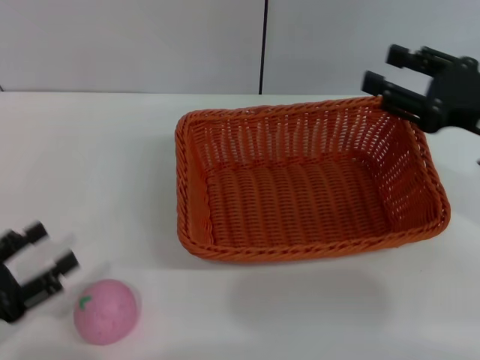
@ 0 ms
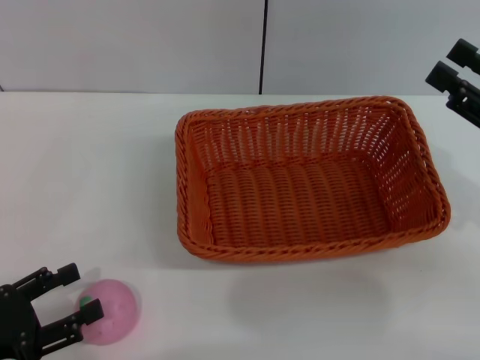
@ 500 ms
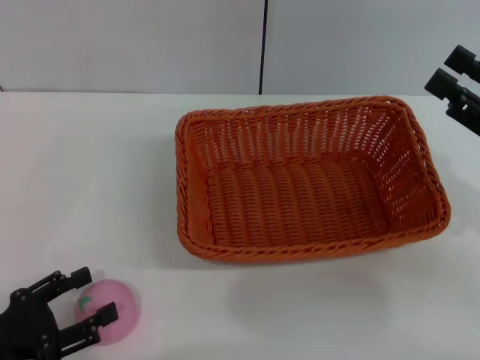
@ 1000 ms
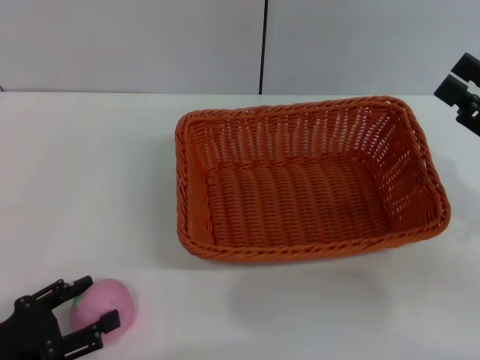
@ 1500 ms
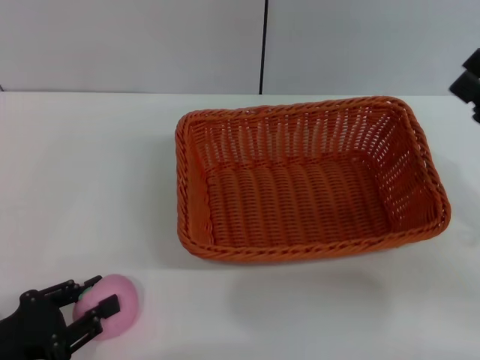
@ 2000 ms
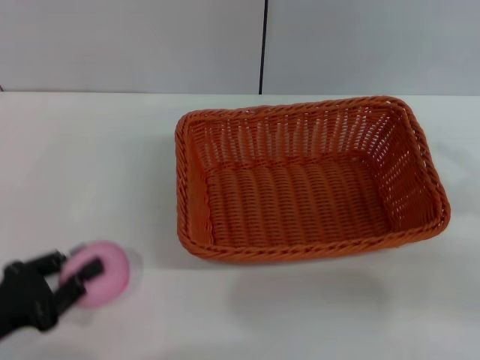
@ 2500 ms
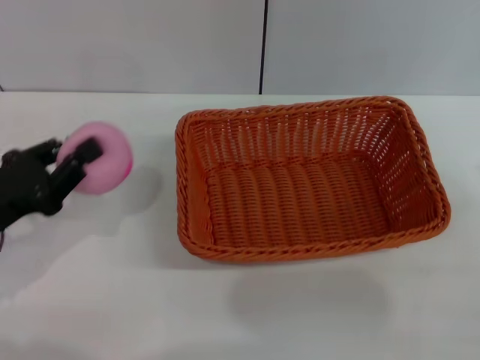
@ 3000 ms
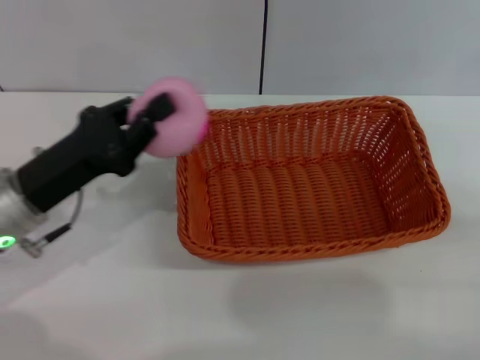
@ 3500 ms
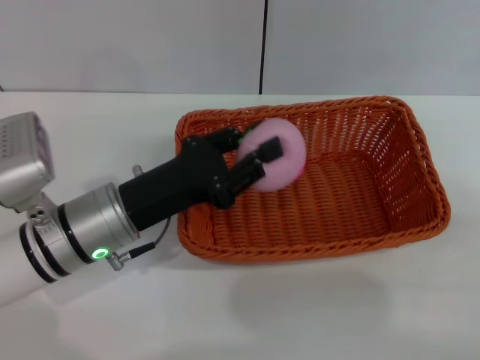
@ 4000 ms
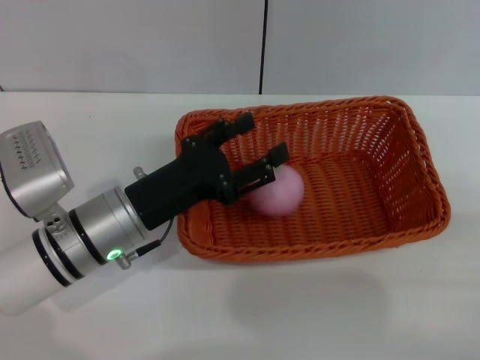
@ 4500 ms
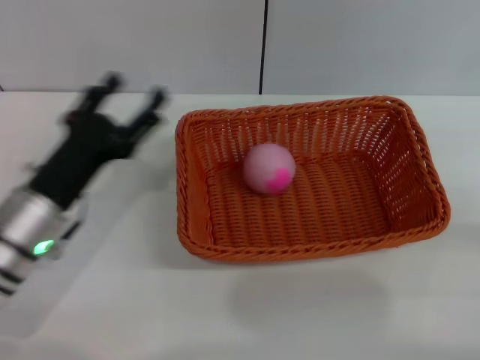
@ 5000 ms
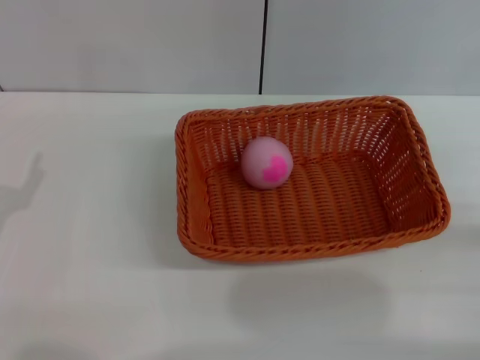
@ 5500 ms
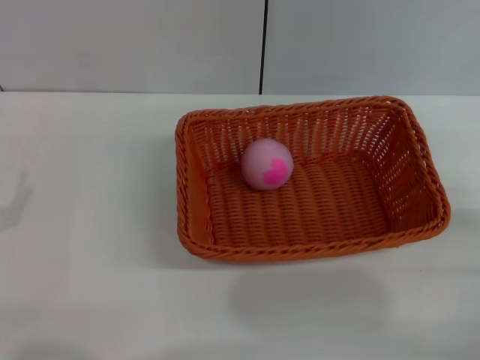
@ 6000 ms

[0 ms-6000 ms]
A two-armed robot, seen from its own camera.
Step, 0 ms to 2500 ms: Pick up the peach with the left gripper.
Step, 3000 ms to 4500 ms: Place the peach into the basket with the left gripper.
0 ms to 2000 ms: The right gripper goes roughly 5 cm backward.
2000 ms to 4000 ms: The left gripper goes roughly 20 cm to the right and forward, and closes; the right gripper is displaced backward and to the right by about 10 cm.
4000 ms to 6000 ms: The left gripper heads to the left and backward, covering some 20 cm, and opens up.

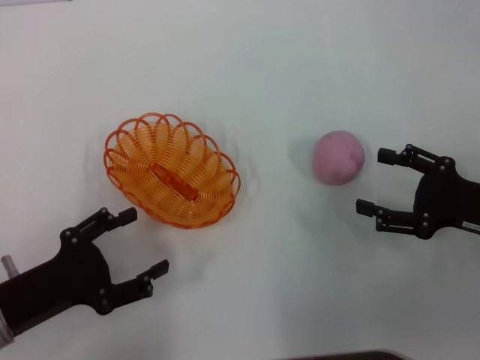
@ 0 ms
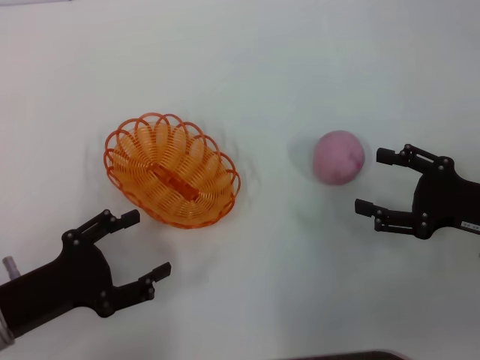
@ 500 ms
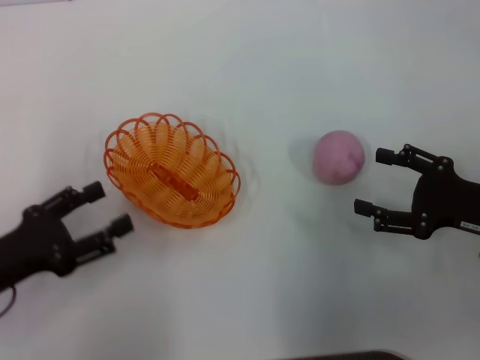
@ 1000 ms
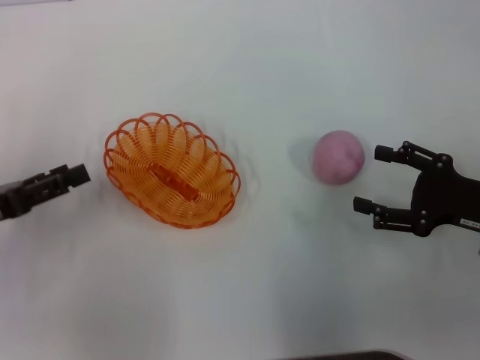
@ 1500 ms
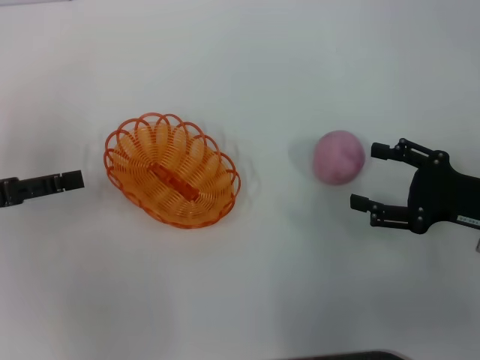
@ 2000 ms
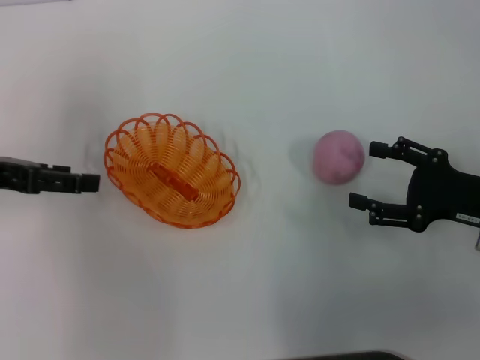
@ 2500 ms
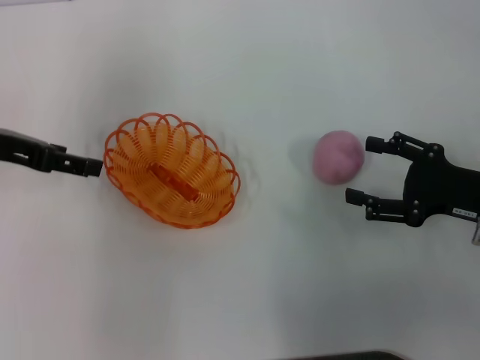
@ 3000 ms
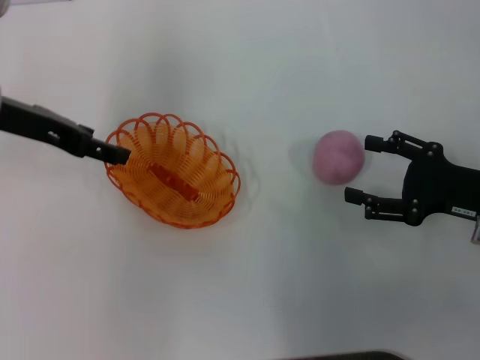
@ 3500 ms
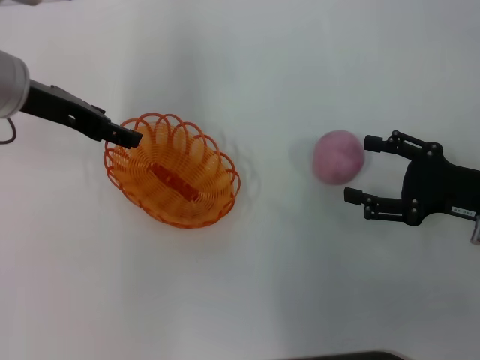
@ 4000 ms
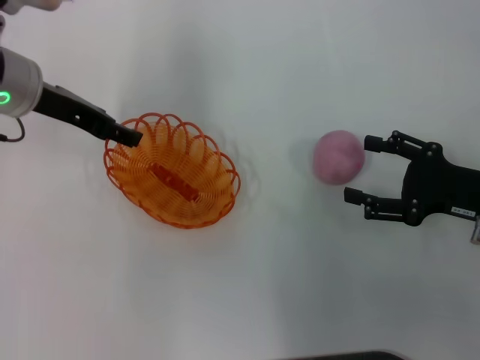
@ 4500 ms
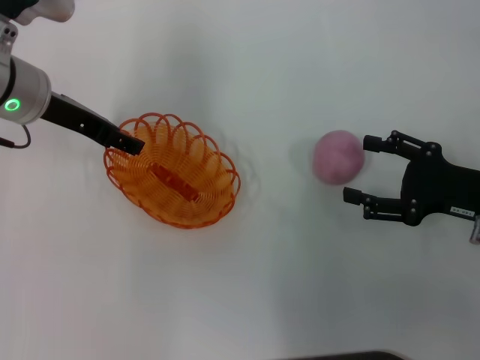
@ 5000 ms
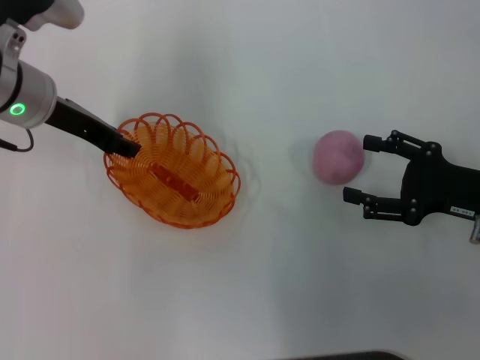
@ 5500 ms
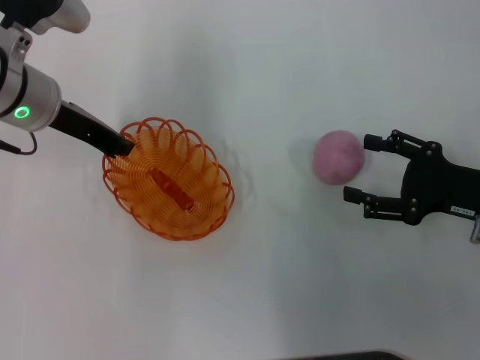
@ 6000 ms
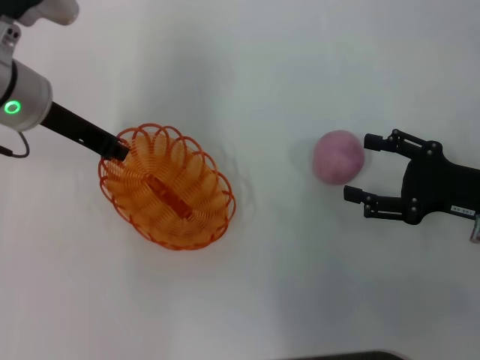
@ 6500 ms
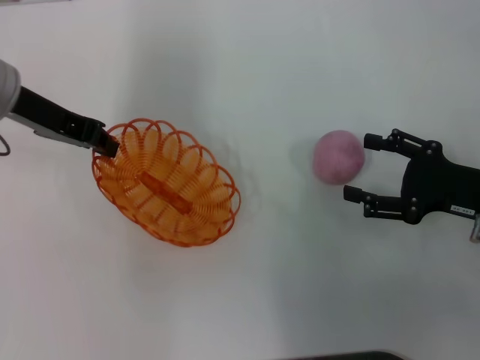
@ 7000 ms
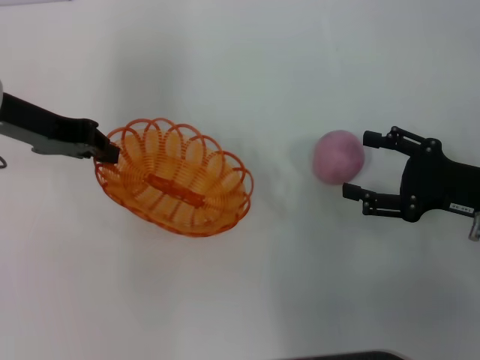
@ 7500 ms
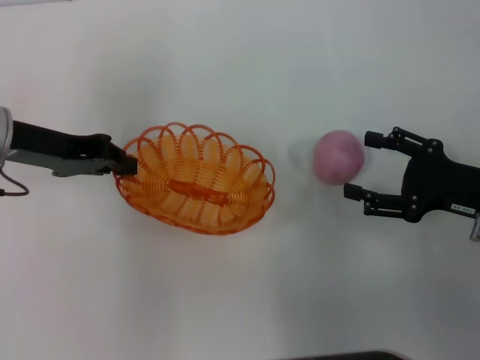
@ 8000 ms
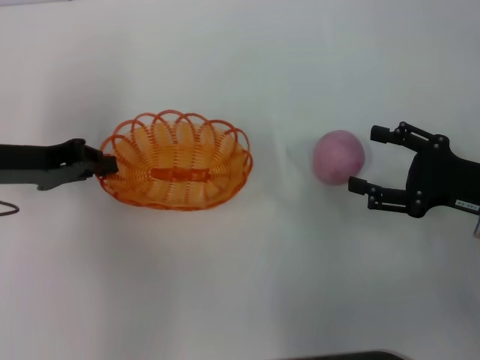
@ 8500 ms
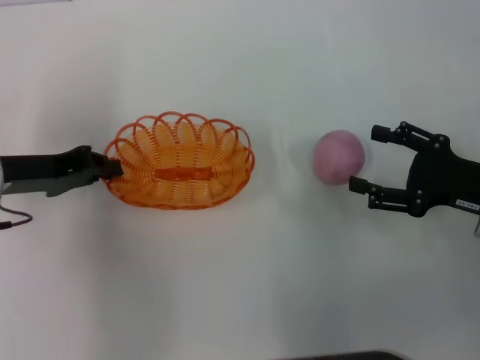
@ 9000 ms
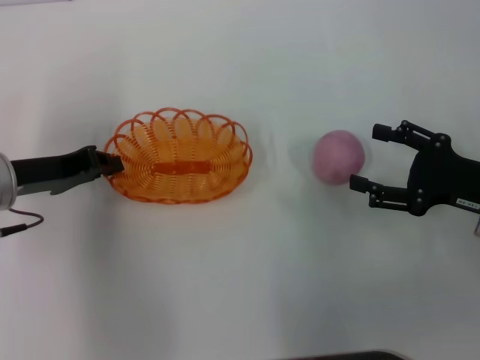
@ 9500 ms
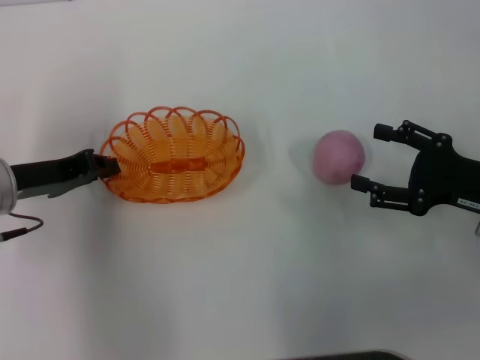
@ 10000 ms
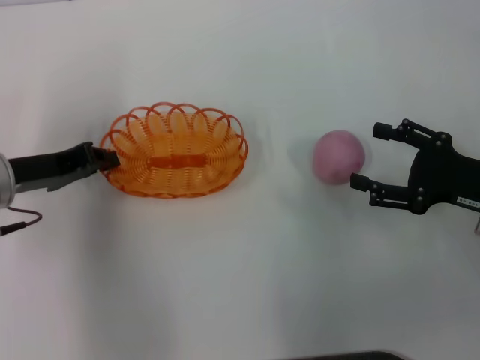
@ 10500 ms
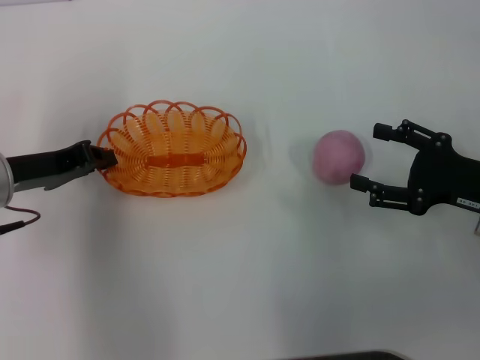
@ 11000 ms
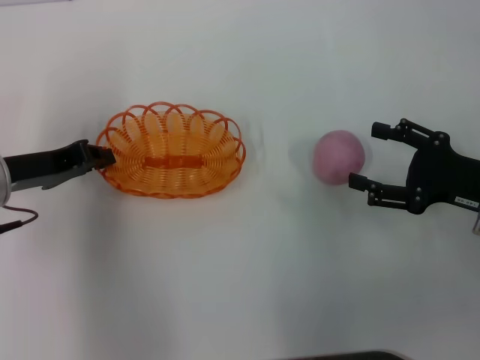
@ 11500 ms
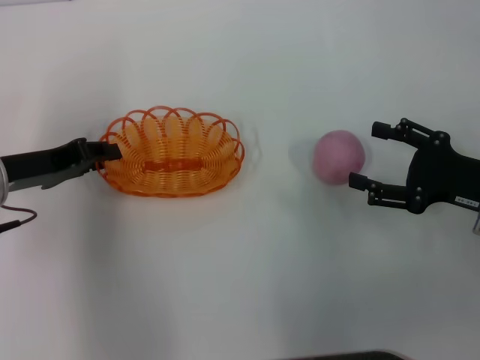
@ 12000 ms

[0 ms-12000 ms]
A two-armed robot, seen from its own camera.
Step, 0 ms to 6500 ms: Pick up the basket with the left gripper.
0 ms to 2000 ms: The left gripper heads forward, upward and to the left, covering about 15 cm.
2000 ms to 4000 ms: The left gripper heads to the right, forward and upward, covering approximately 15 cm.
4000 ms to 6000 ms: The left gripper closes.
6000 ms to 8000 ms: The left gripper moves roughly 5 cm.
8000 ms to 10000 ms: The left gripper goes some 5 cm downward.
10000 ms to 12000 ms: The two grippers keep their place.

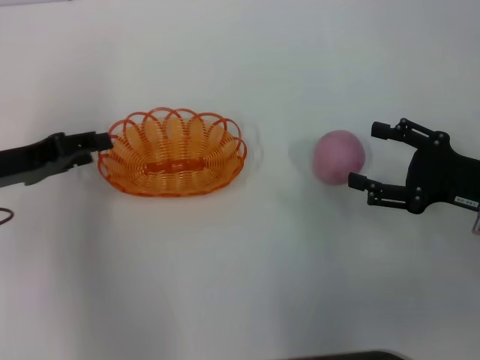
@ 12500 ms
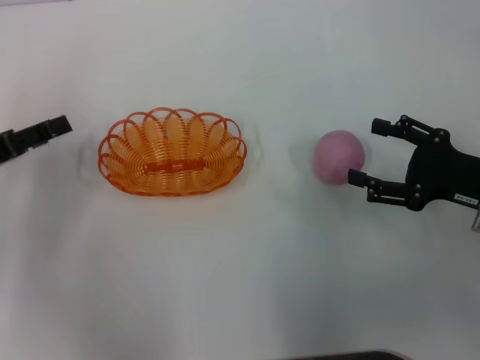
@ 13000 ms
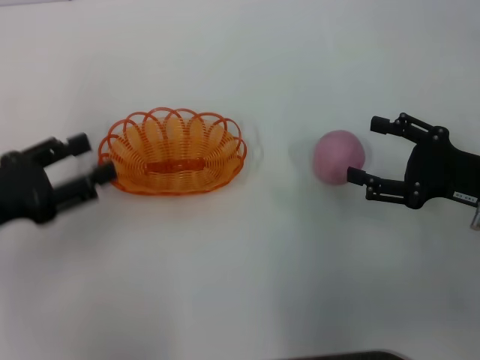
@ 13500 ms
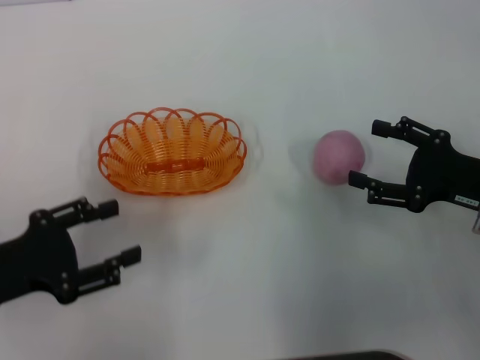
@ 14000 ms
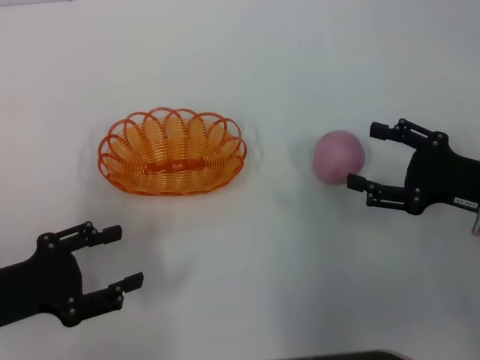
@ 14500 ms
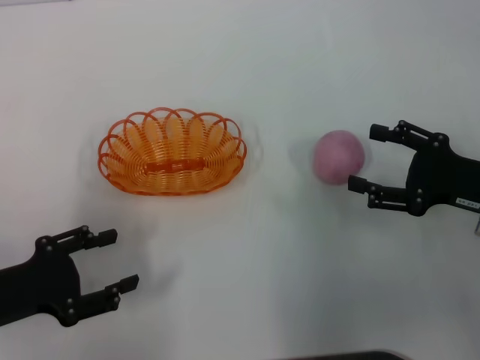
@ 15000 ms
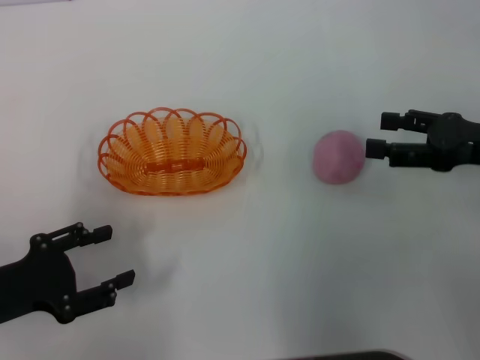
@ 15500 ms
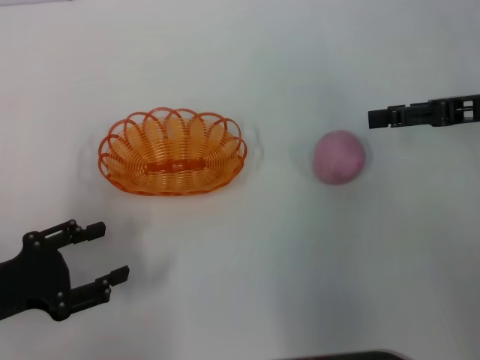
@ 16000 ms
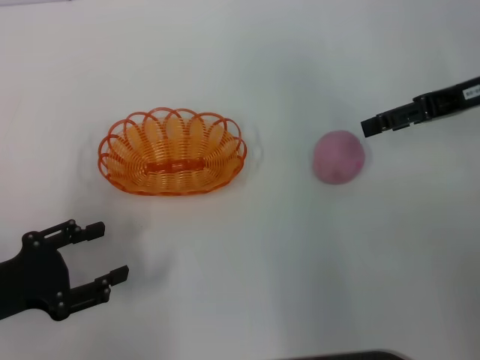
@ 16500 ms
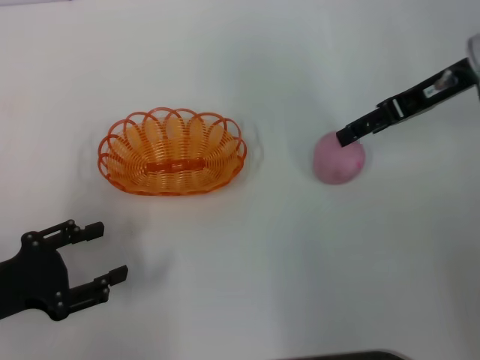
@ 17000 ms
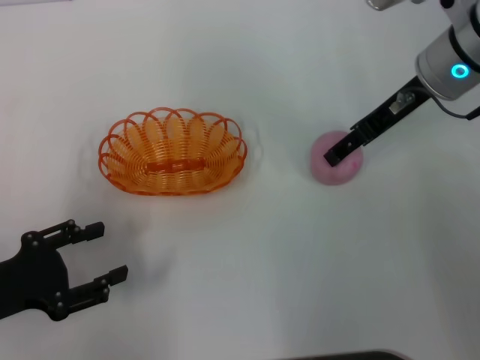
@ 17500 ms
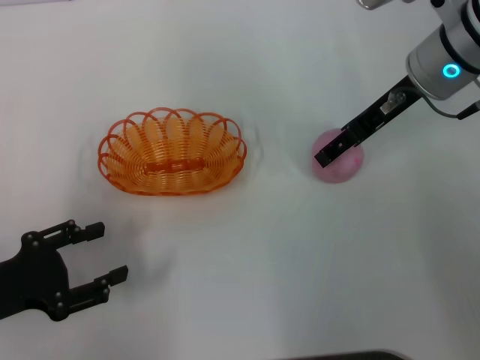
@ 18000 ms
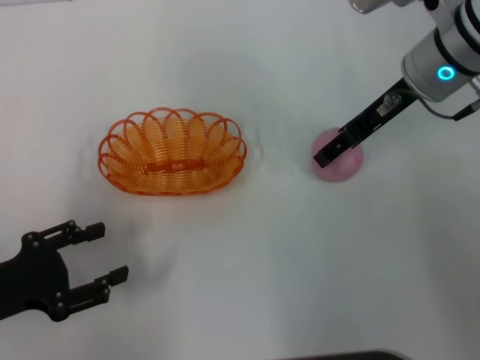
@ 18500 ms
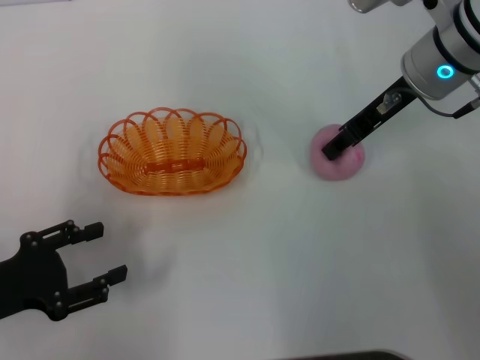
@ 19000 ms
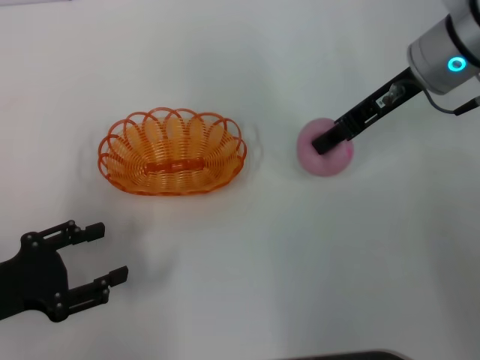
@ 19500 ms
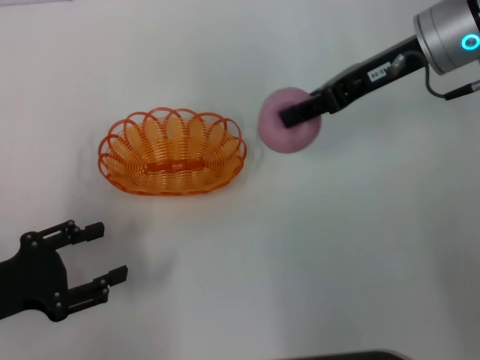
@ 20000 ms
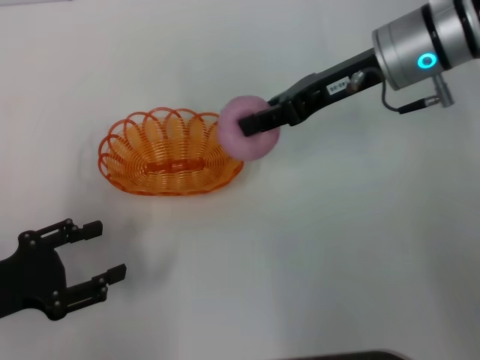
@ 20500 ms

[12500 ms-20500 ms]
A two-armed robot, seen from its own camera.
Step, 13000 ms to 20000 ms: Pick up the peach with the right gripper.
12500 ms to 14500 ms: The left gripper goes about 10 cm backward.
14500 ms to 16500 ms: The right gripper goes about 15 cm forward and upward.
16500 ms to 18500 ms: The right gripper heads to the left, covering some 10 cm.
18500 ms to 20500 ms: The right gripper closes up.
